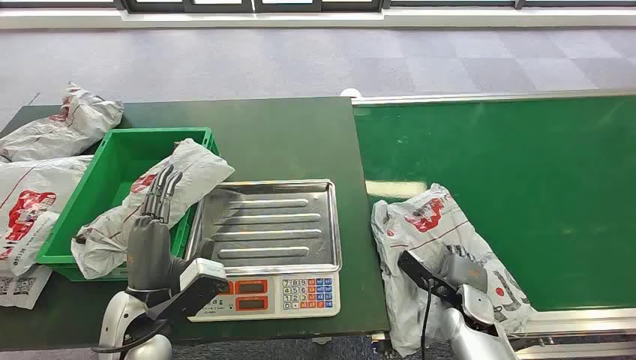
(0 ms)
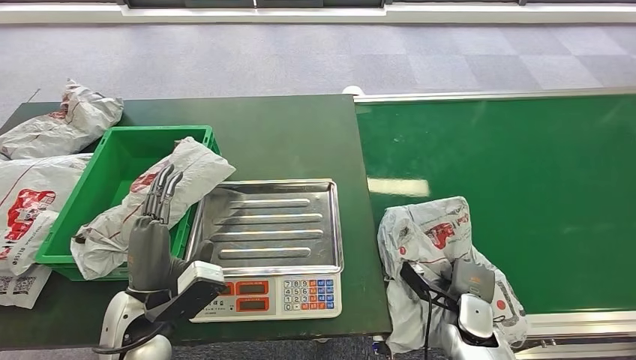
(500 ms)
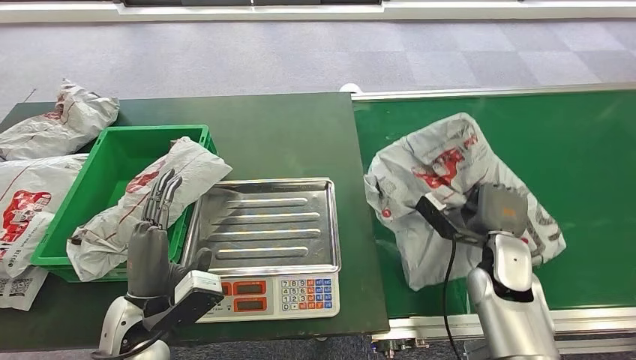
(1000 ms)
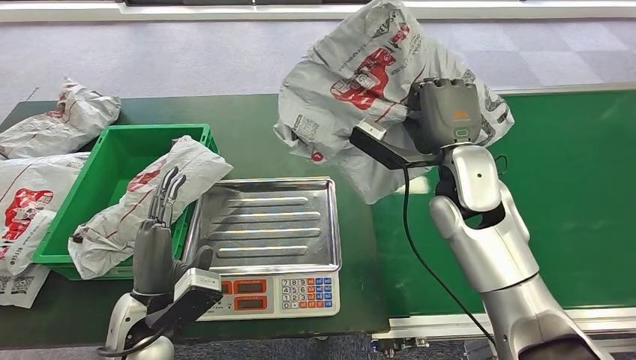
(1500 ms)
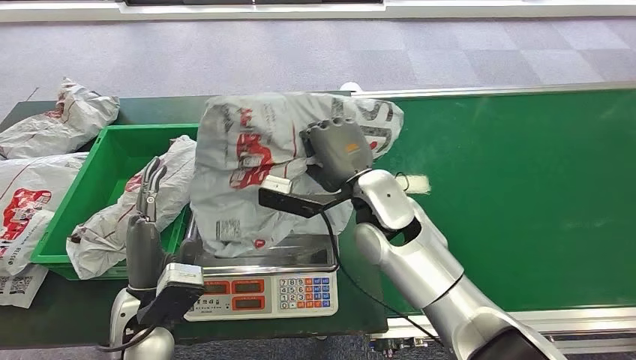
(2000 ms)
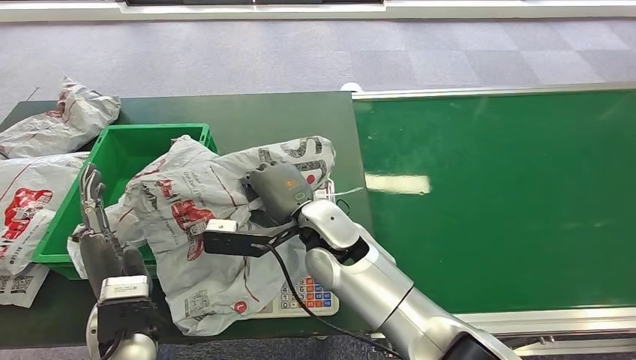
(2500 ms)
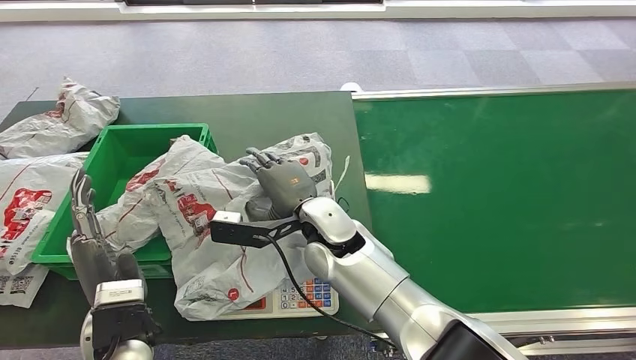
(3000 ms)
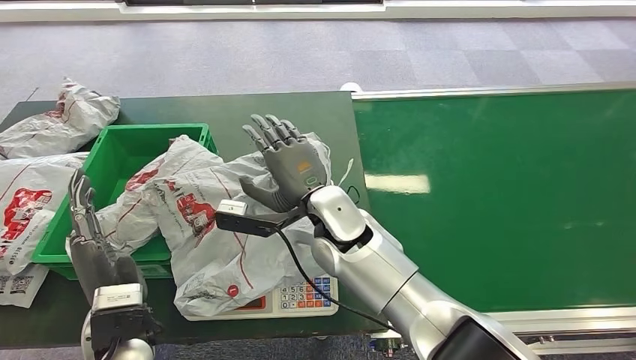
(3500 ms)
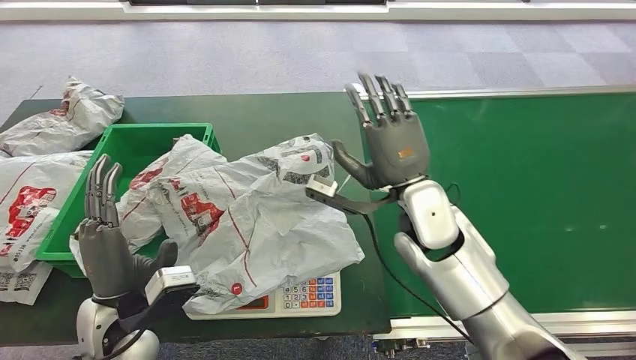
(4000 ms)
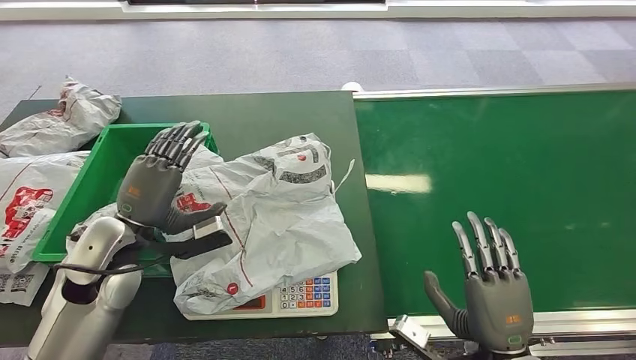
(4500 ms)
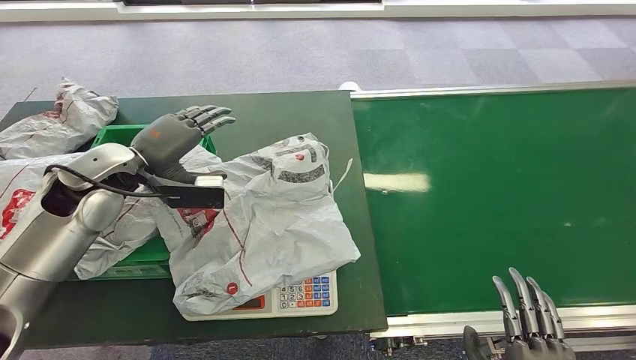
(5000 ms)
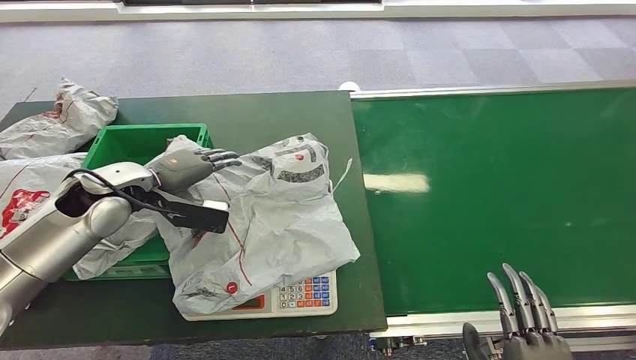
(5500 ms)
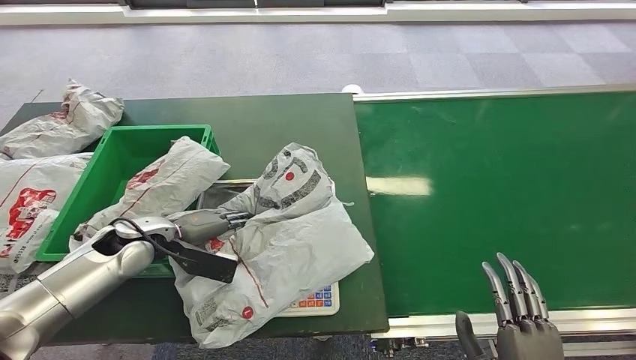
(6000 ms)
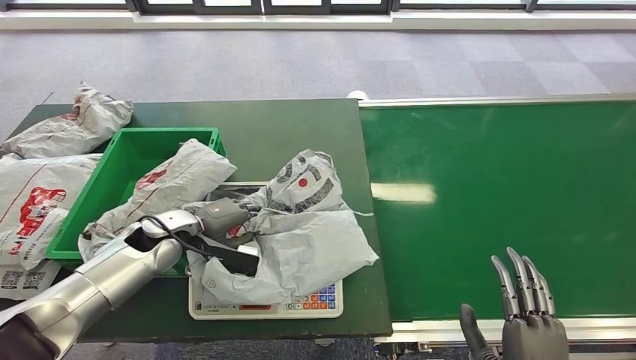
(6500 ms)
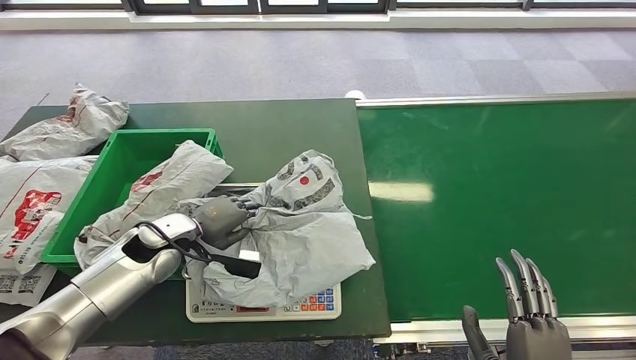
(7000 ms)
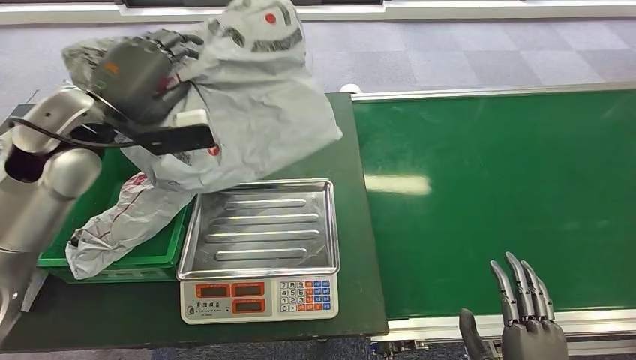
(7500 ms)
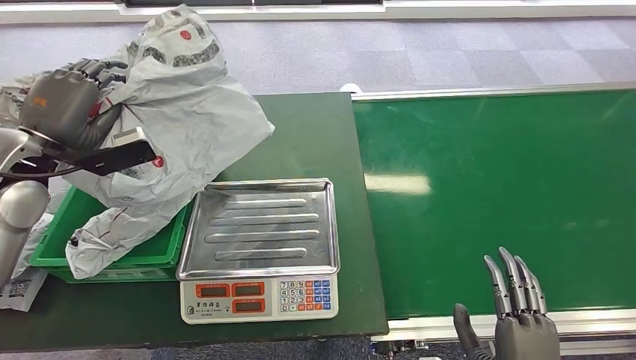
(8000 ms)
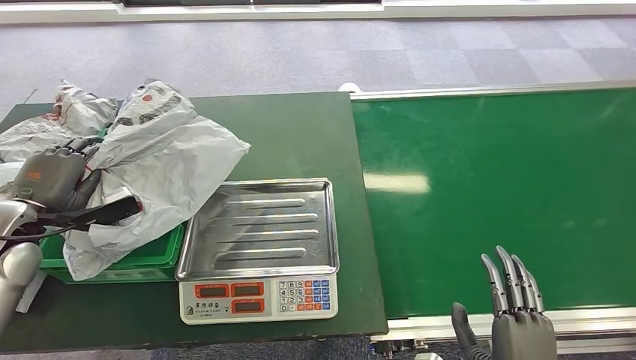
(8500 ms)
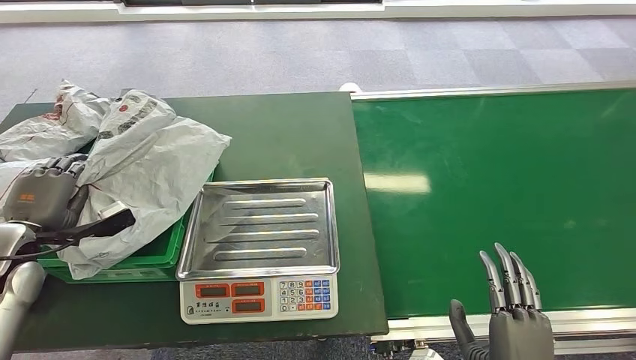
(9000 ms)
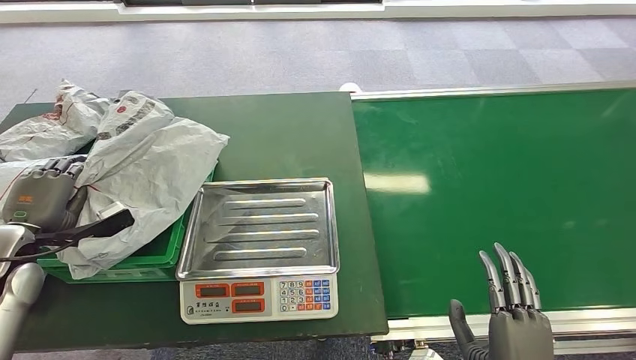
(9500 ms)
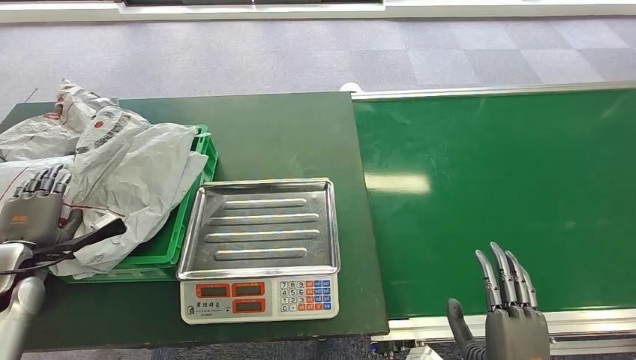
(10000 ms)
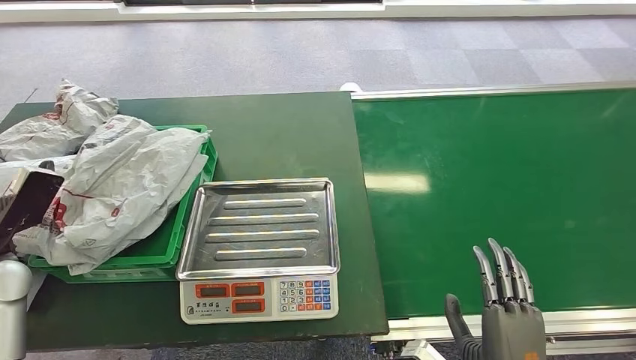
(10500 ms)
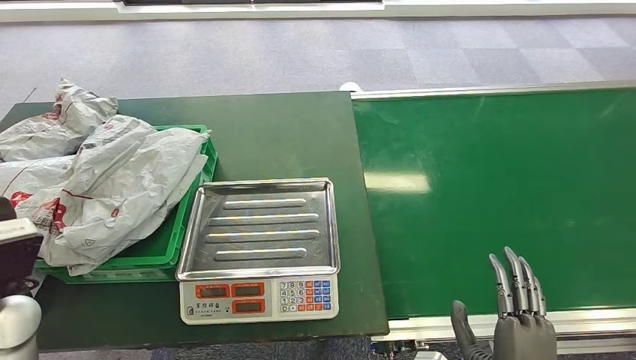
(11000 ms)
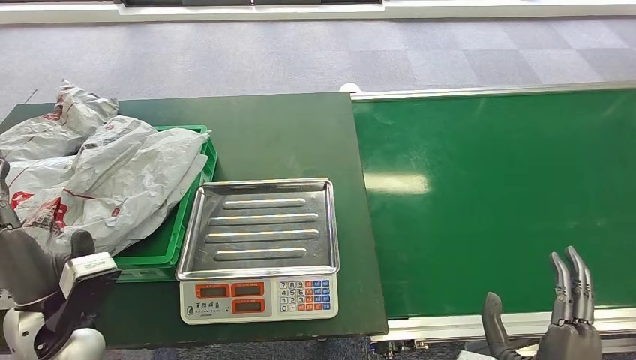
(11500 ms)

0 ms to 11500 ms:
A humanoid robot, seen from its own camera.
Step, 0 ms to 1500 ms: Pick up the package from the conveyor belt.
Step, 2000 ms to 4000 ms: Place the package onto the inbound machine.
Step, 4500 ms to 7500 ms: Pick up the package from the inbound machine.
Step, 8000 ms to 11500 ms: Place the package into the parcel locker.
9500 ms to 11500 ms: The left hand travels to the right and backward by some 15 cm.
